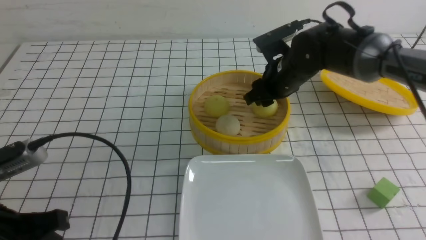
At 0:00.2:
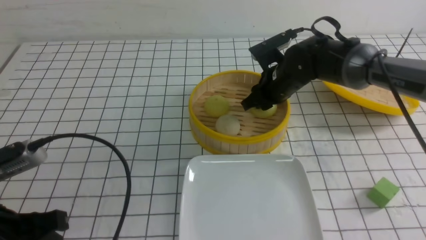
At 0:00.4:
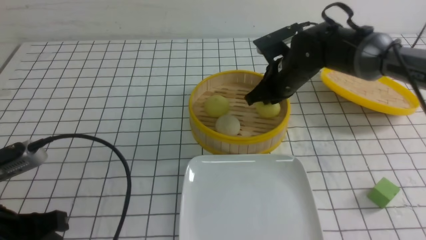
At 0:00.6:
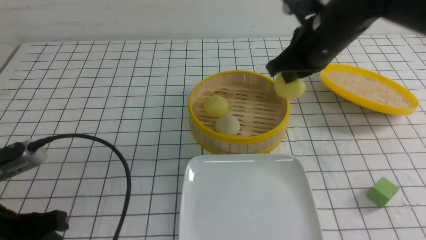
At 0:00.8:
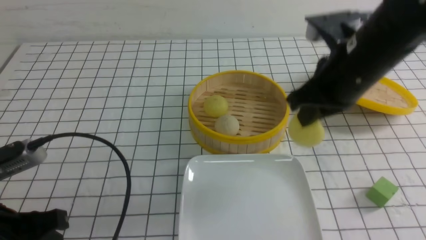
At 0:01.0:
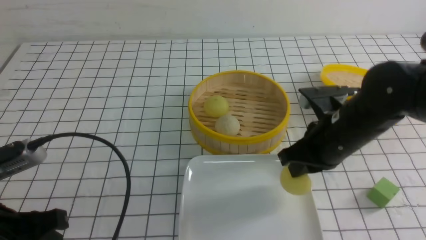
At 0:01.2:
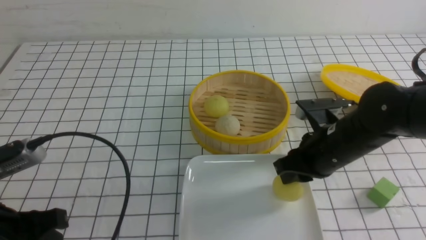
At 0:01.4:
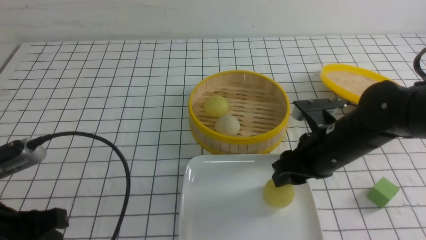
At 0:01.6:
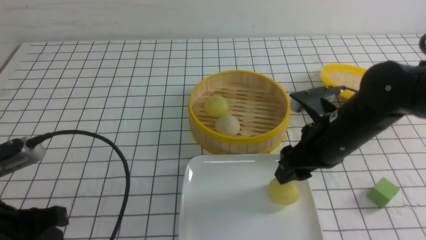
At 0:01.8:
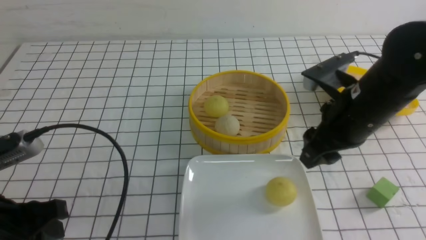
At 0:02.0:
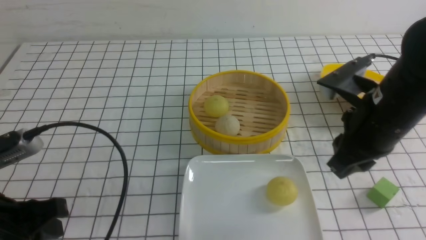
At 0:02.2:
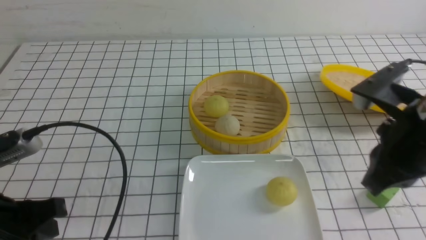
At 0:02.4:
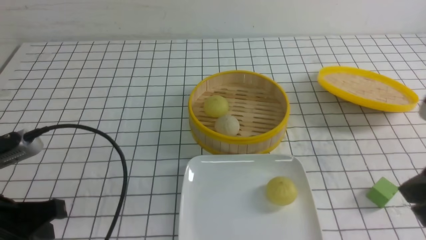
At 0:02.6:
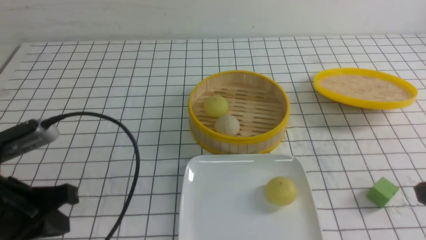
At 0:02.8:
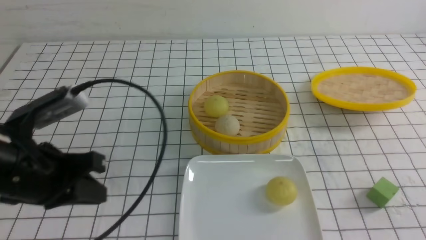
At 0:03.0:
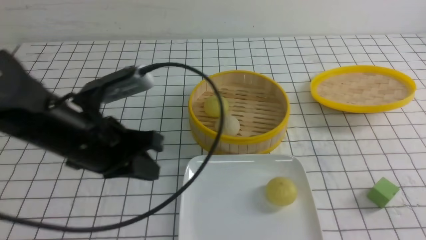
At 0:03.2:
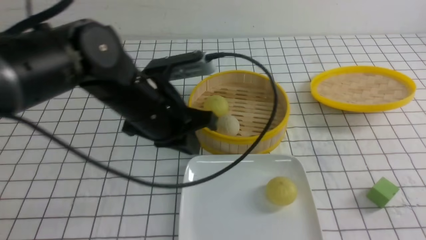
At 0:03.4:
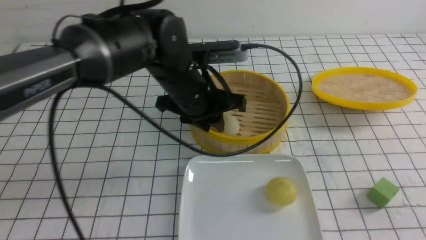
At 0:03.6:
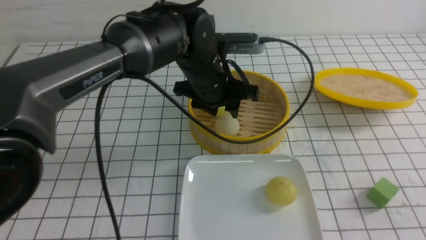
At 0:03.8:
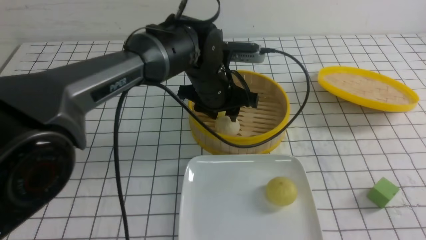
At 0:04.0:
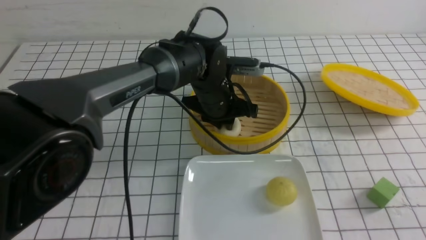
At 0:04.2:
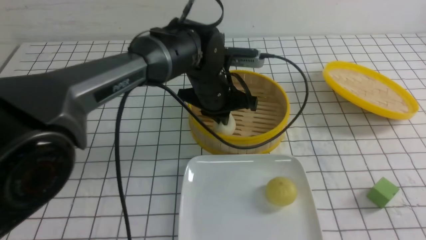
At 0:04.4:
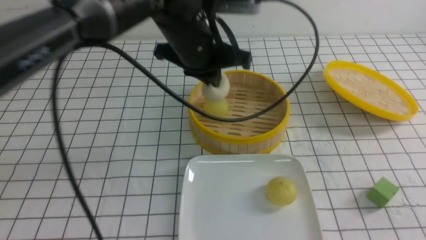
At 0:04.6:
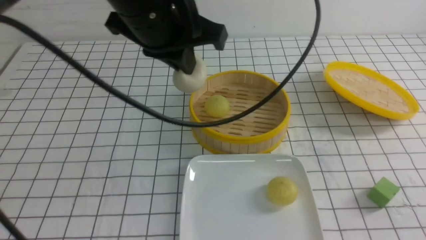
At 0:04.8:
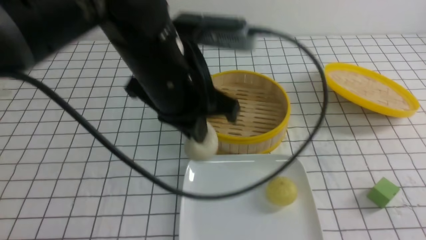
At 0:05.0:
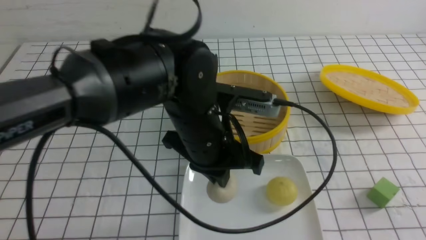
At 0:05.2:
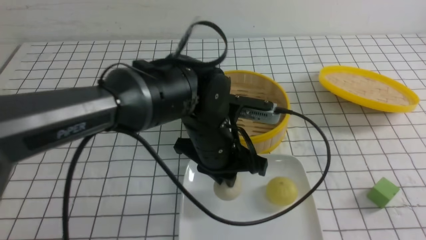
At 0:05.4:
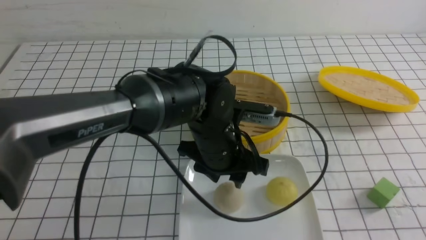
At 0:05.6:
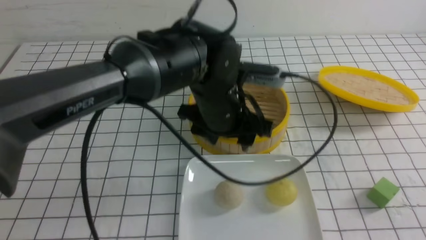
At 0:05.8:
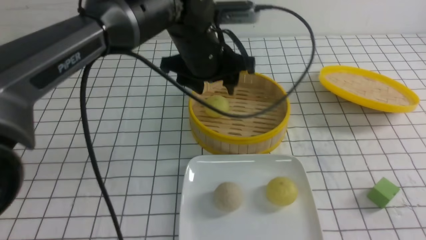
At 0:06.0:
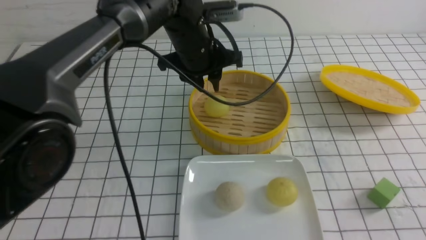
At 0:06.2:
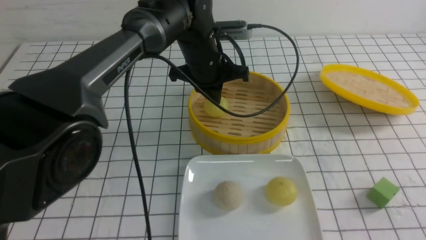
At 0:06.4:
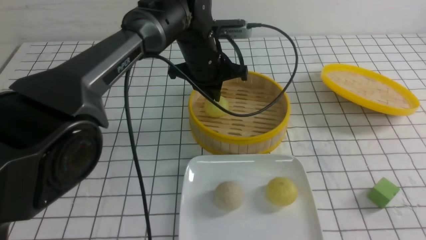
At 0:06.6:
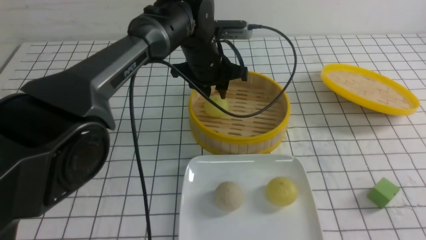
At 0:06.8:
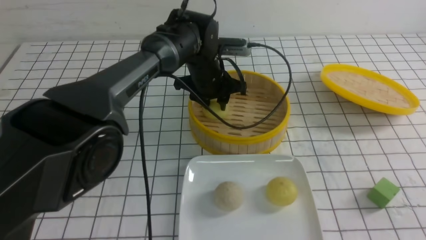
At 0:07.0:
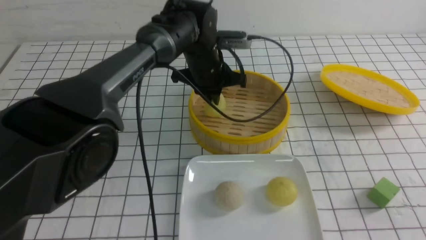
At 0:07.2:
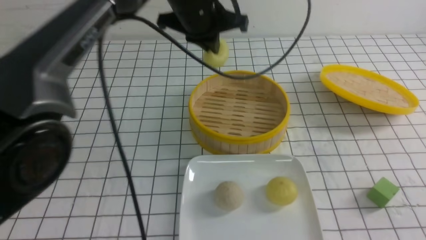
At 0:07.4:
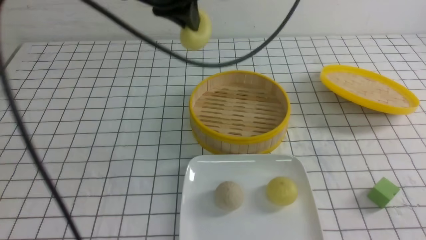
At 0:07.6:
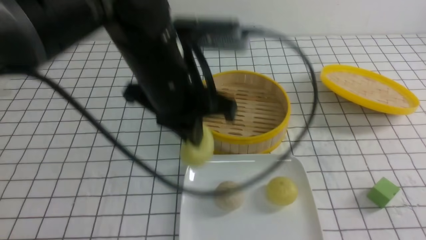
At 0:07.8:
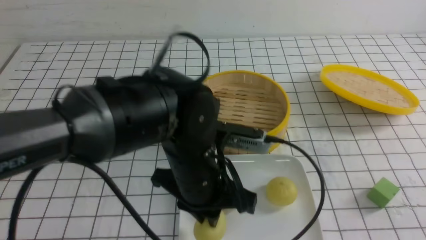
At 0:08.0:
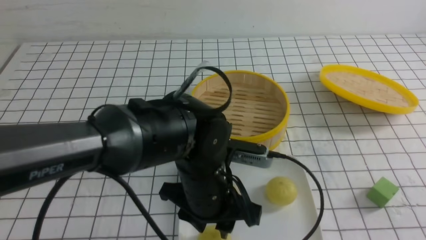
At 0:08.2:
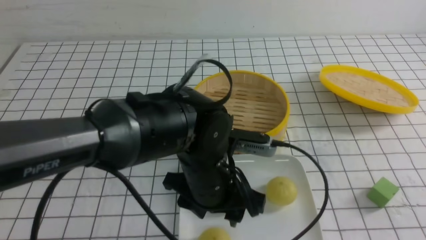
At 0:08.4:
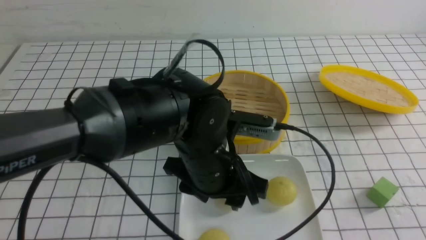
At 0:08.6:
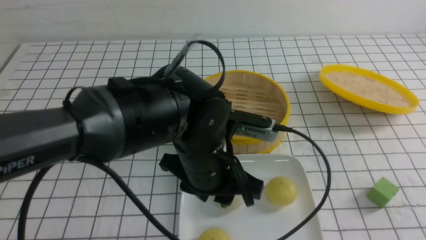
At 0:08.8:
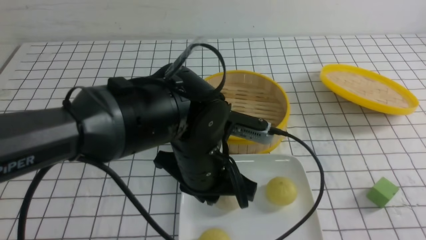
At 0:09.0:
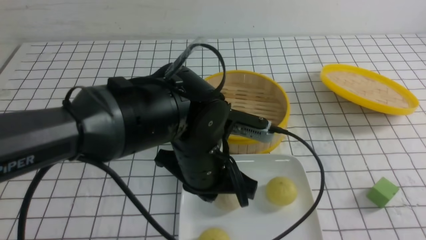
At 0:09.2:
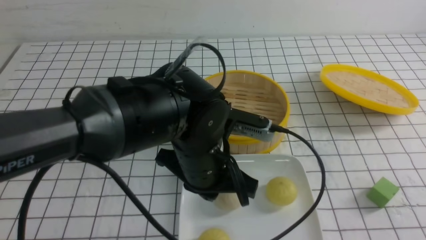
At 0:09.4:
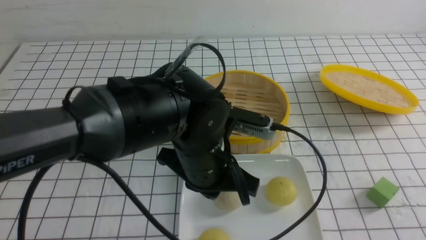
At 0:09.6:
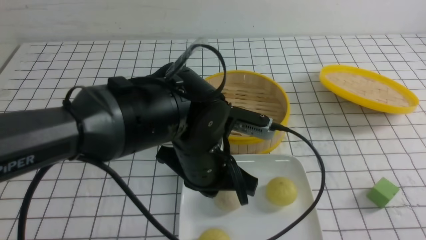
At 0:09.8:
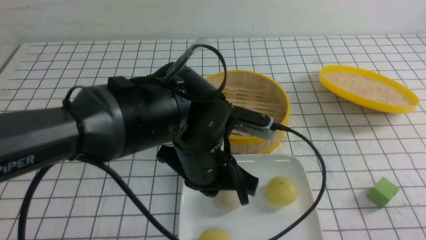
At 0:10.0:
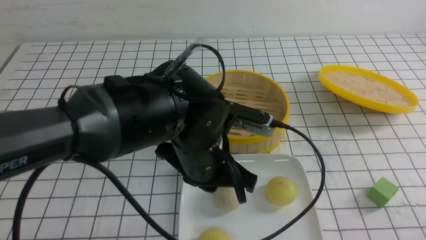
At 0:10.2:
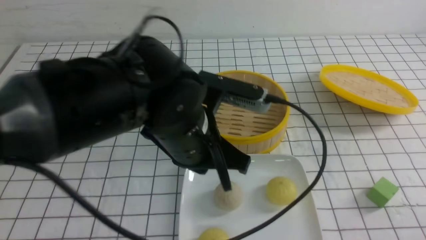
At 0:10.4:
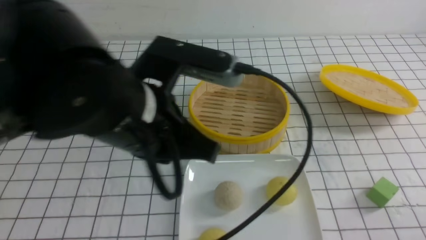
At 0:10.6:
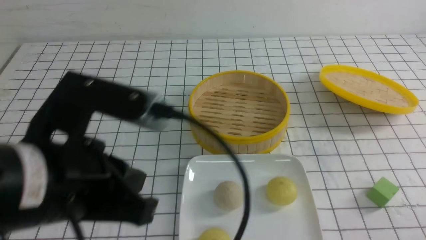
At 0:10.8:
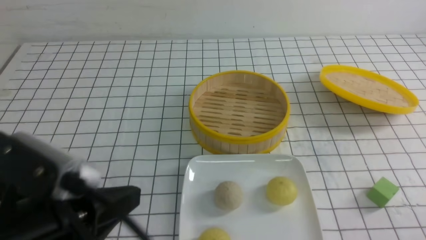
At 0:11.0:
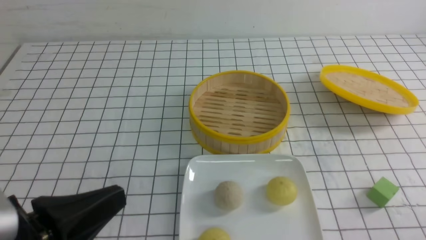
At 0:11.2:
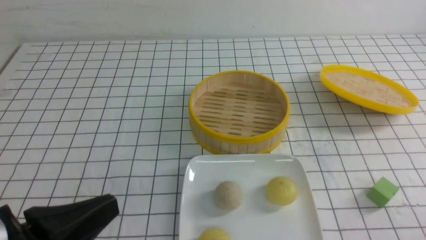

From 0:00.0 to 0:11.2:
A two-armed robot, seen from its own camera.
Step, from 0:00.6 to 0:01.6: use the right arm to put the steamed stuffed bun into the plate.
Step, from 0:01.8 to 0:04.0: use the left arm to grab the steamed stuffed bun that is closest to it.
Step, from 0:04.4 to 0:05.4: use the left arm to put the steamed stuffed bun into the plate.
Step, from 0:05.6 to 0:07.0: use the left arm to grab the steamed stuffed bun that is closest to it.
Step, from 0:07.2 to 0:08.2: use the left arm to put the steamed stuffed bun into the plate.
From 0:00.0 to 0:01.6: The right gripper is displaced backward by approximately 15 cm, and closes and opens again.
From 0:01.6 to 0:03.2: The left gripper heads forward and to the right, covering some 25 cm; the right gripper moves backward and to the right, some 25 cm, and closes its fingers.
From 0:03.2 to 0:04.8: The left gripper swings up and down, approximately 15 cm each way, with 2 reversals, and opens, then closes once more.
From 0:04.8 to 0:06.4: The left gripper is displaced forward and downward by about 20 cm, and opens and closes again.
From 0:06.4 to 0:08.0: The left gripper heads backward, covering about 20 cm, and opens its fingers.
From 0:08.0 to 0:09.6: The left gripper closes its fingers.
From 0:09.6 to 0:11.2: The right gripper goes about 10 cm downward. Meanwhile the left gripper heads to the left and backward, covering roughly 25 cm.

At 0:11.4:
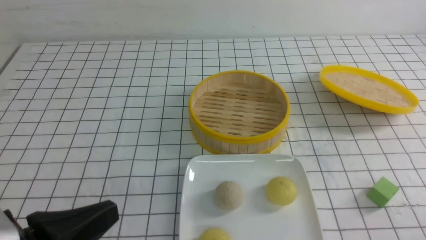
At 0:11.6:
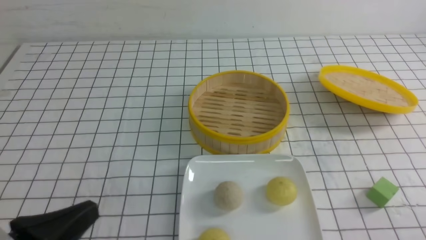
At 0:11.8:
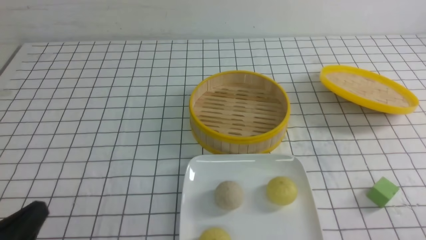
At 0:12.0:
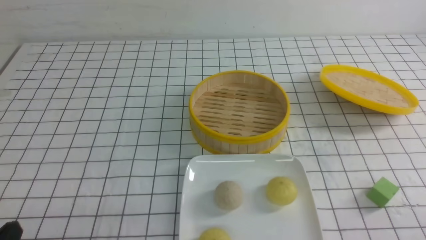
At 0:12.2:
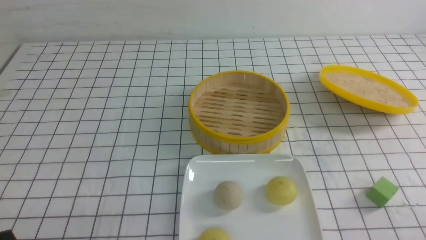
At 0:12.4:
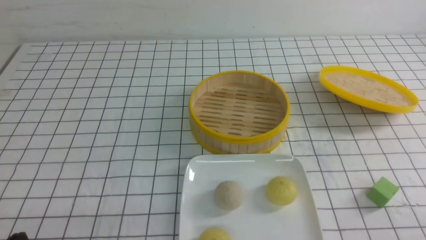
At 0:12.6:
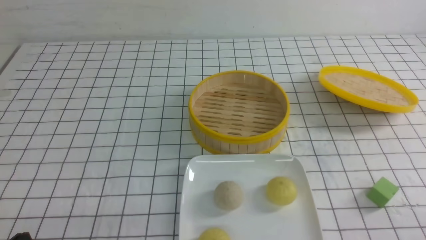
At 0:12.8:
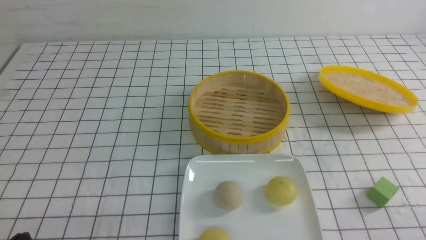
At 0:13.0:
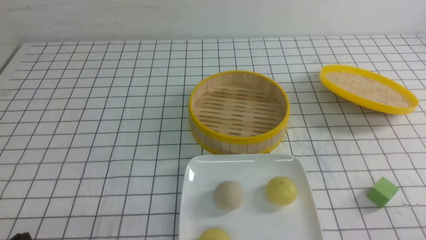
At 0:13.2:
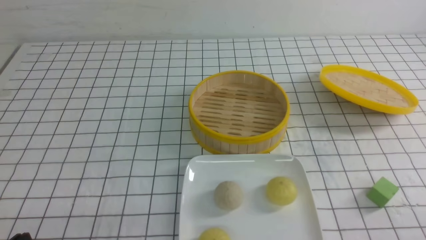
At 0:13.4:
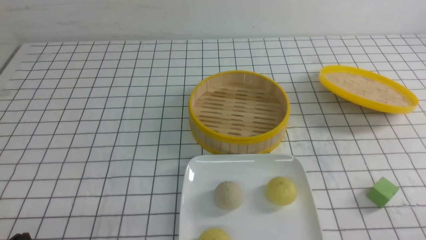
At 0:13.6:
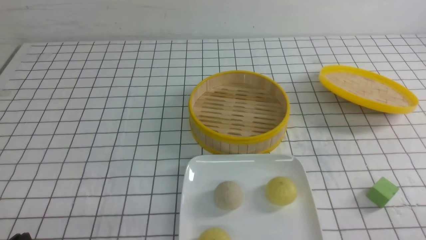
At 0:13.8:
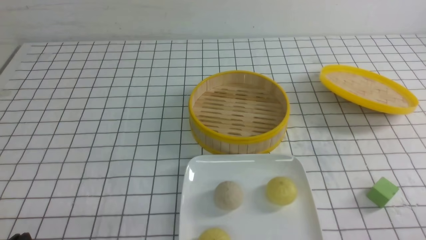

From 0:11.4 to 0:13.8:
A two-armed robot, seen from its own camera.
From 0:11.4 to 0:12.6: The left gripper goes some 10 cm downward and to the left.
From 0:12.6 to 0:13.8: The two grippers keep their place.

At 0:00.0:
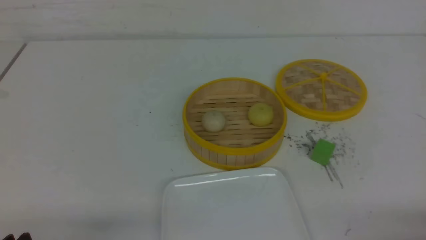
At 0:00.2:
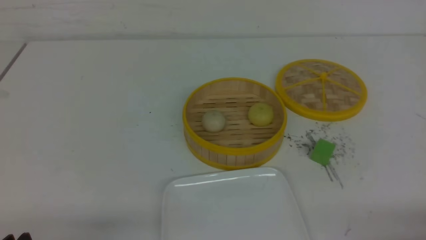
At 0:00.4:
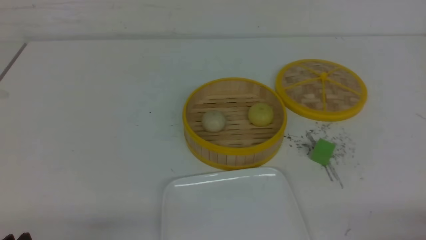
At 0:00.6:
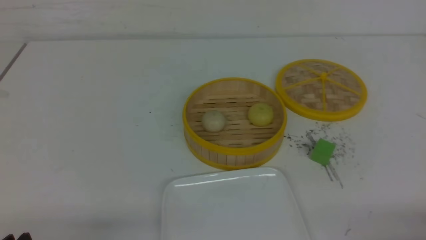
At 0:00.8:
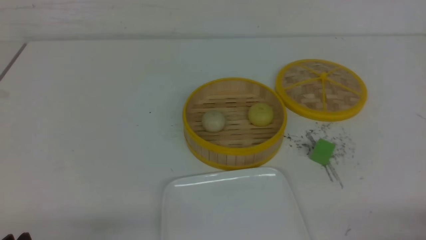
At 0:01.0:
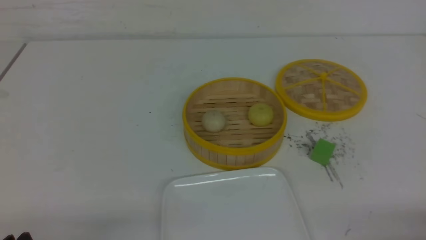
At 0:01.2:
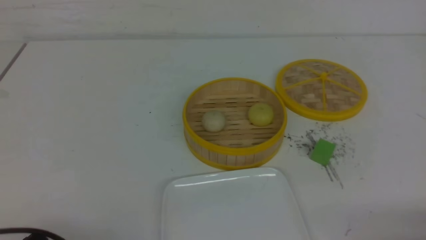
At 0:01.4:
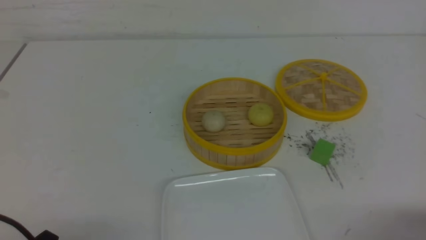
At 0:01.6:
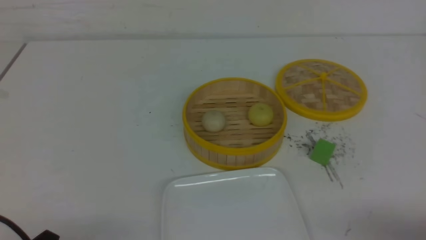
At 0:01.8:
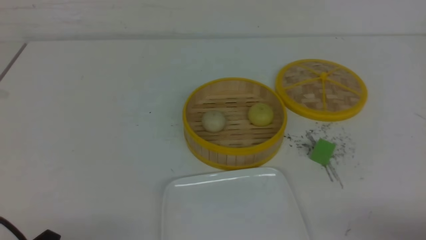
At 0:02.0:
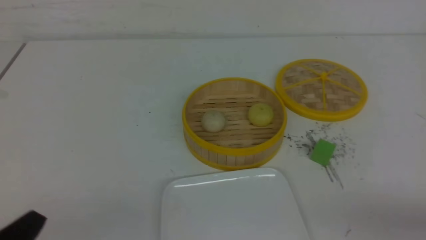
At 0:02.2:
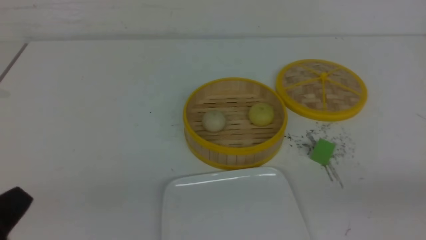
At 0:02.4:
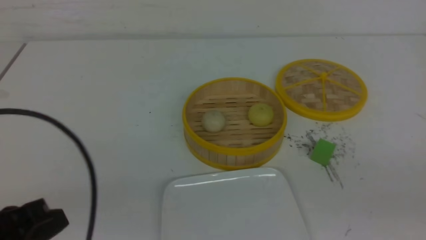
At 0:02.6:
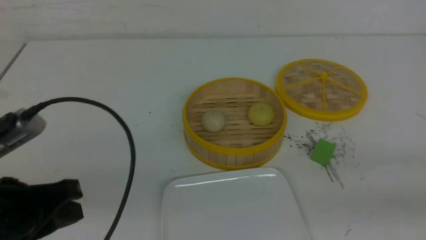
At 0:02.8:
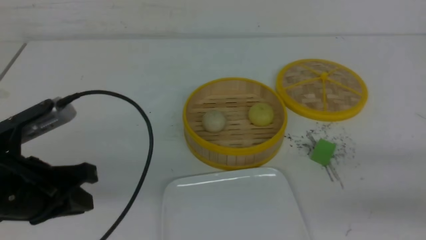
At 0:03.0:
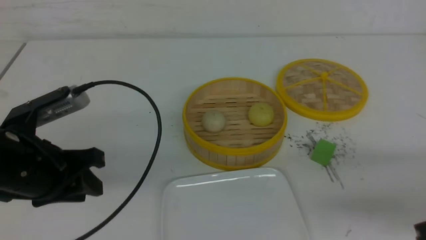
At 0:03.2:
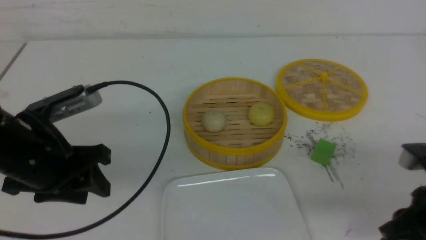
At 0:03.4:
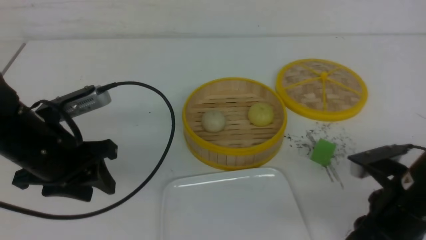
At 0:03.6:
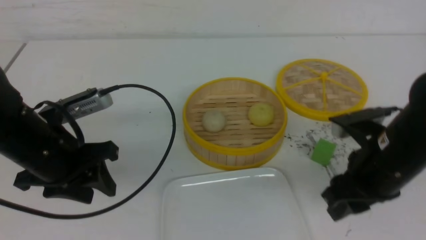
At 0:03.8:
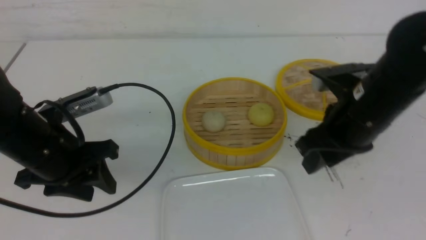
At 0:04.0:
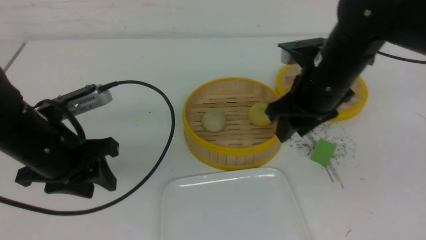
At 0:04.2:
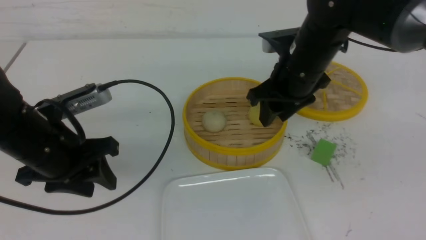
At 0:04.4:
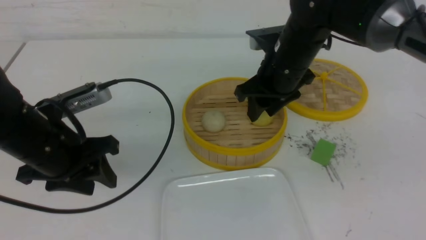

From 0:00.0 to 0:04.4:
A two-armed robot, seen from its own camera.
From 0:01.4 to 0:03.0: The left gripper heads forward and upward, covering roughly 20 cm, and closes and opens again. The right gripper is displaced forward and upward by approximately 10 cm, and closes up.
From 0:03.0 to 0:04.4: The right gripper moves forward and to the left, some 30 cm, and opens.
